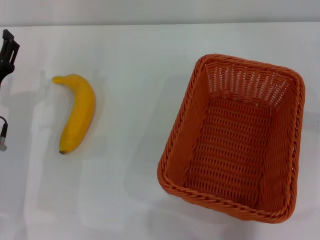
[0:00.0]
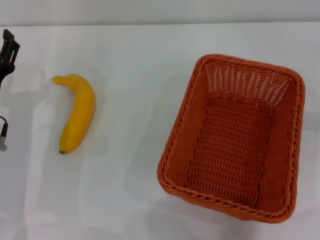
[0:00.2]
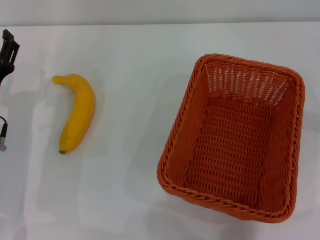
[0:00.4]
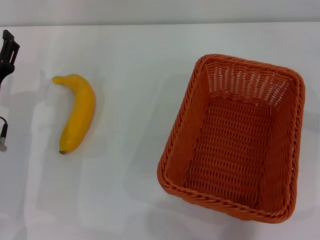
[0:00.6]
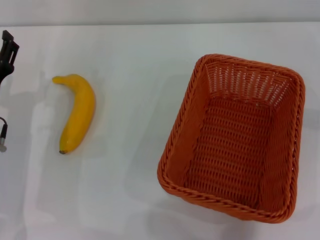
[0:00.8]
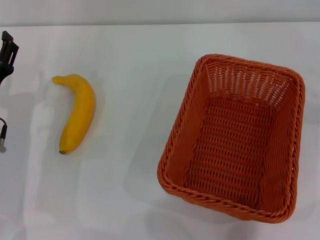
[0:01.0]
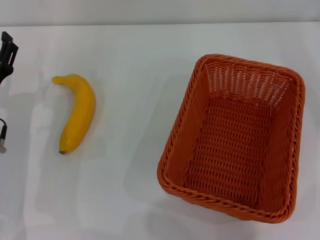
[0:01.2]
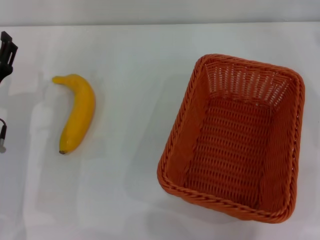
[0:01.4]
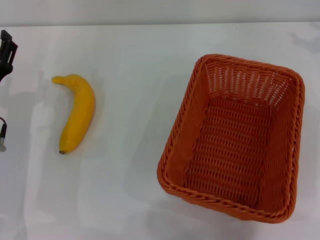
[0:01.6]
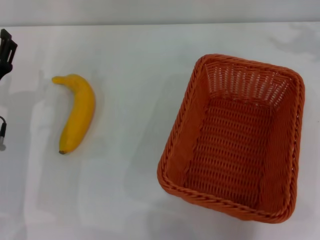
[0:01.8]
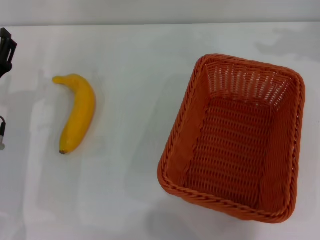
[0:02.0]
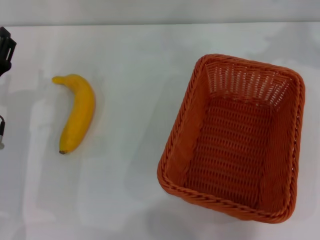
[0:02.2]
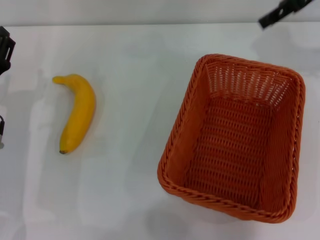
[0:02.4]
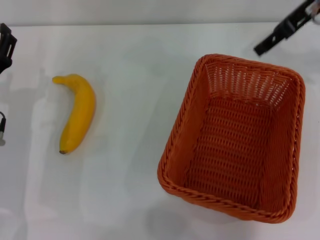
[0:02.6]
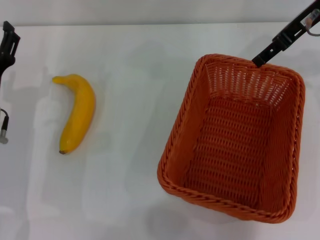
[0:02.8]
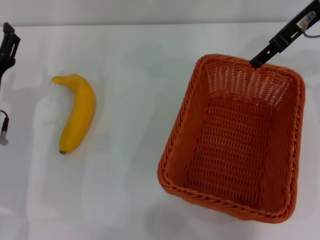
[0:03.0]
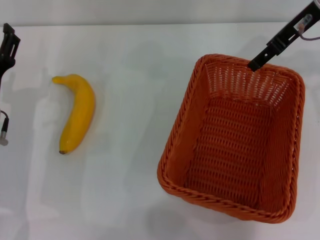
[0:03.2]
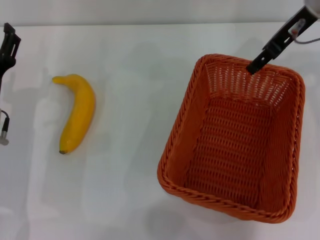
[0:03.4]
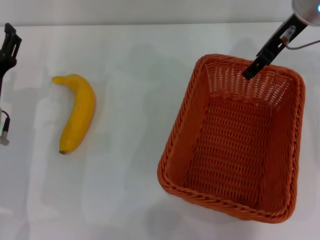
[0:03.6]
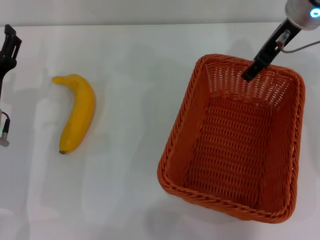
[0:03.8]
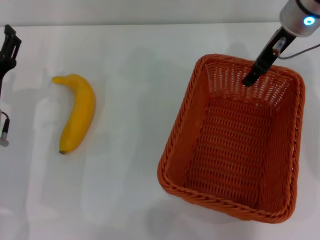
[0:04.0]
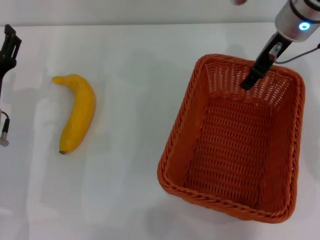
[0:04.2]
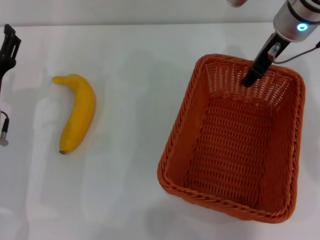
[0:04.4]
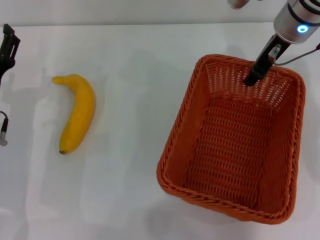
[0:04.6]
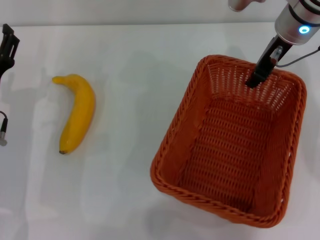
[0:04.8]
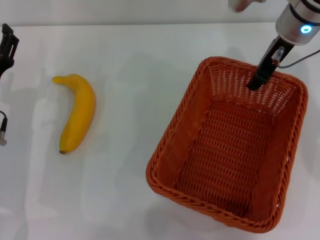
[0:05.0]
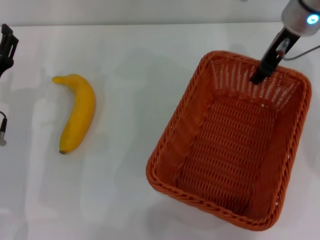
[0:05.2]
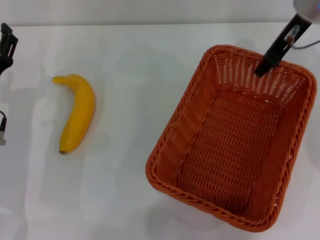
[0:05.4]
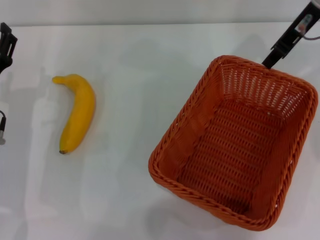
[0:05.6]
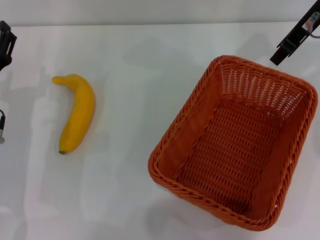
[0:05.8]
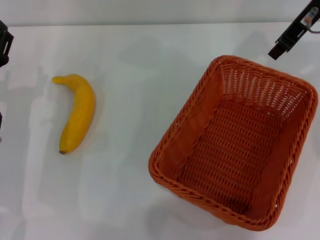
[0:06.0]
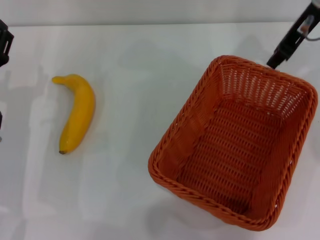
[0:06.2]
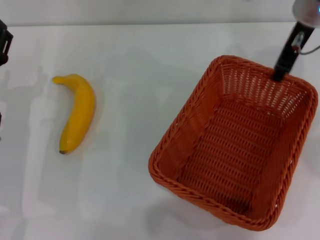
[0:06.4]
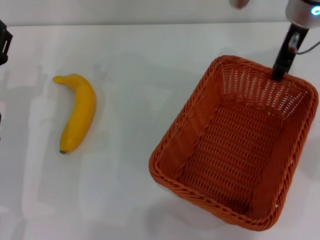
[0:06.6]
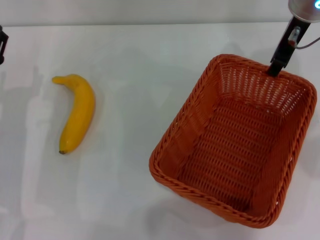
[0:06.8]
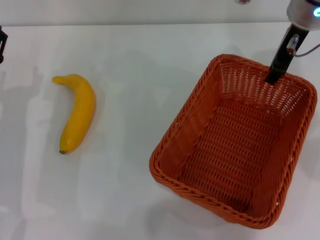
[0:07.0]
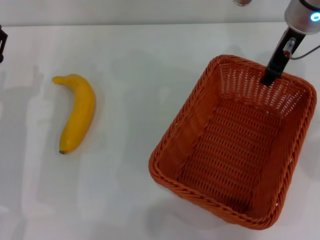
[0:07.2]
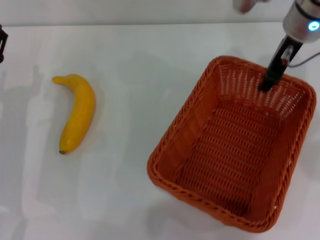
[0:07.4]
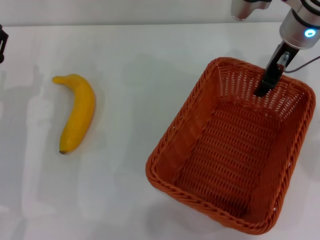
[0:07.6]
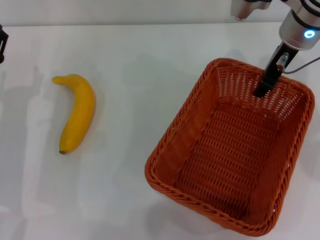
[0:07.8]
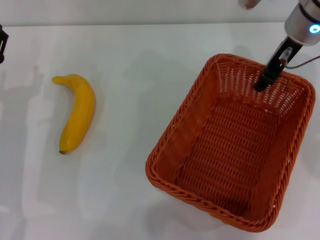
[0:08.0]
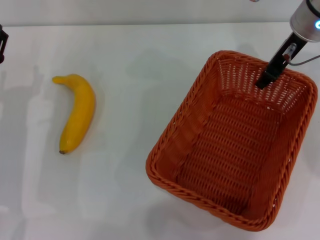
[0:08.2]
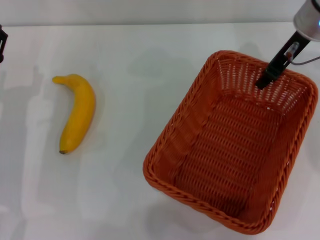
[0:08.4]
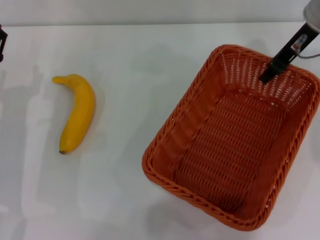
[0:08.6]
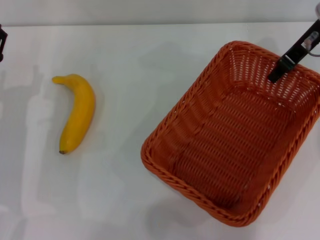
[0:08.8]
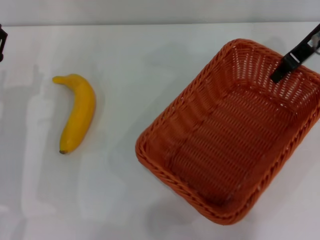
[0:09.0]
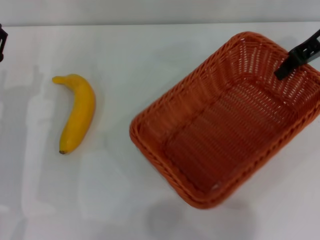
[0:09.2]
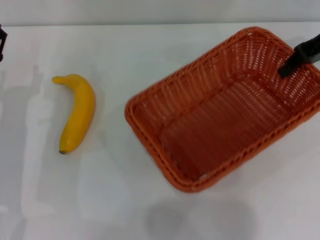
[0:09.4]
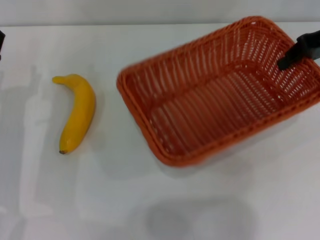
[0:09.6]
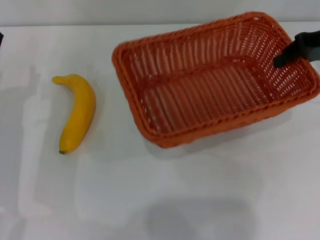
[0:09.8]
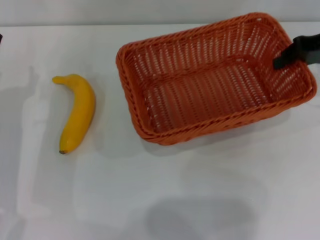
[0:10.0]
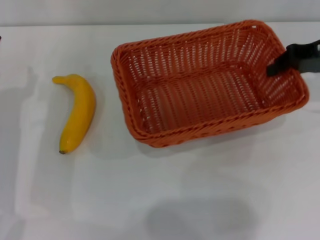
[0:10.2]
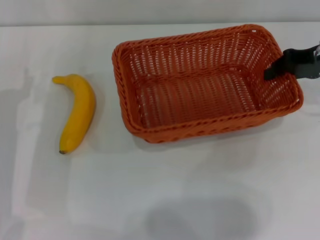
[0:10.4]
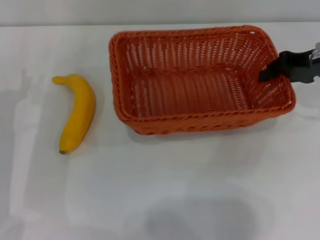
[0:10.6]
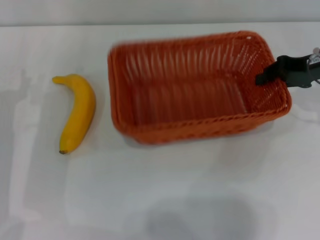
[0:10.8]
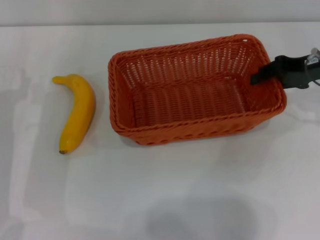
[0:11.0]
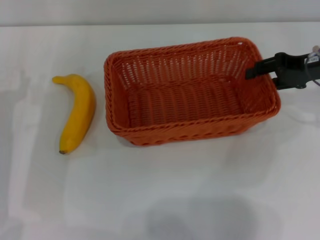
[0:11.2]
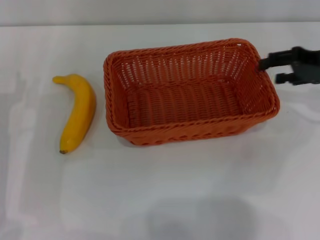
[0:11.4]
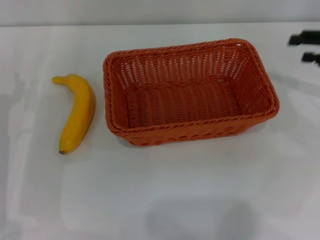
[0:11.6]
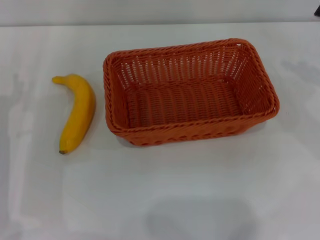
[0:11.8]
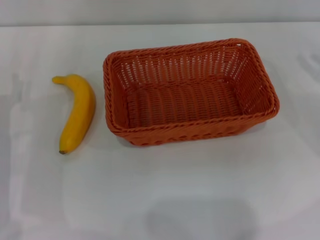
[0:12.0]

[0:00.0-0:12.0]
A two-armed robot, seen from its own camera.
Step, 0:00.0 to 0:09.4: Pick up the light basket with the right gripper.
Step, 0:09.6 to 0:11.2: Place the light basket in the center of view with the right gripper.
0:01.6 to 0:03.0: The right gripper travels to the left by roughly 20 cm.
0:03.0 to 0:04.4: The right gripper shifts roughly 5 cm downward.
0:04.4 to 0:06.0: The right gripper travels upward by some 5 cm, and closes.
0:06.0 to 0:07.6: The right gripper moves downward, roughly 5 cm, and opens.
0:07.6 to 0:09.0: The right gripper heads to the right, covering about 5 cm.
0:09.0 to 0:10.4: The right gripper shifts by approximately 10 cm.
0:10.4 to 0:12.0: The right gripper goes roughly 10 cm to the right, backward and downward, and opens up.

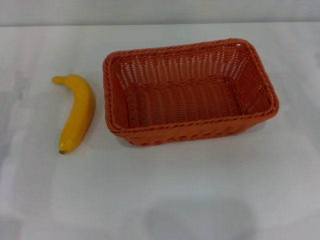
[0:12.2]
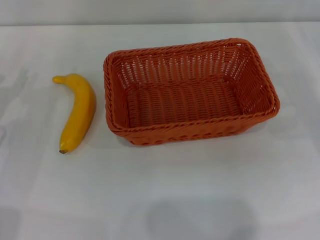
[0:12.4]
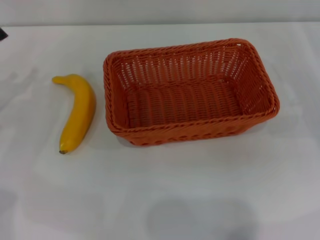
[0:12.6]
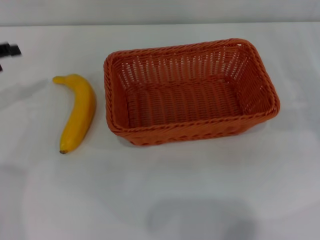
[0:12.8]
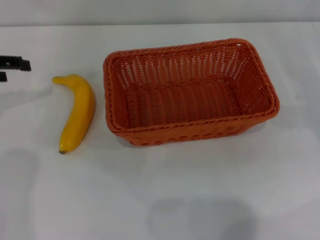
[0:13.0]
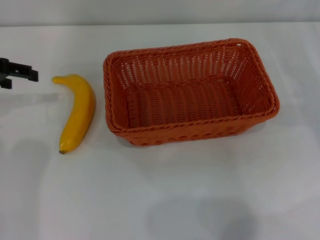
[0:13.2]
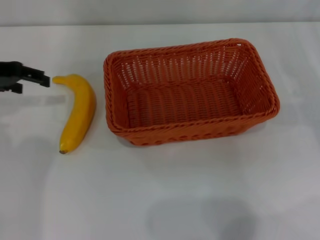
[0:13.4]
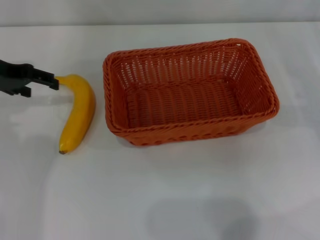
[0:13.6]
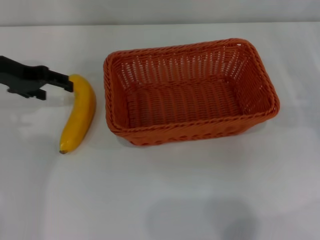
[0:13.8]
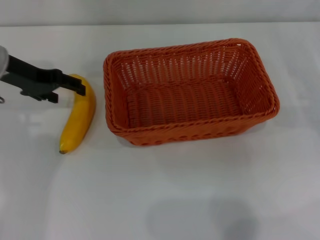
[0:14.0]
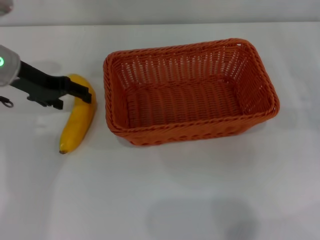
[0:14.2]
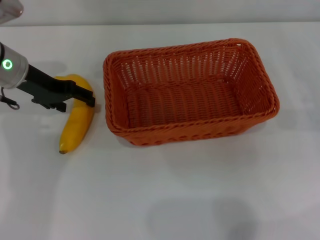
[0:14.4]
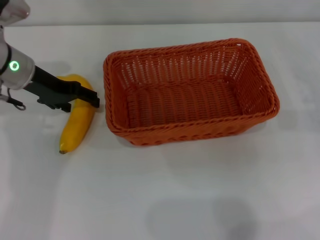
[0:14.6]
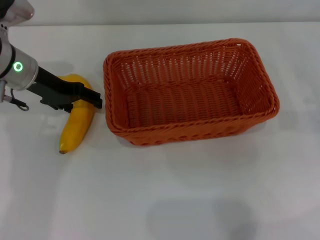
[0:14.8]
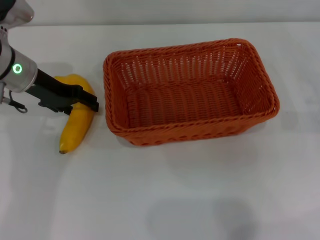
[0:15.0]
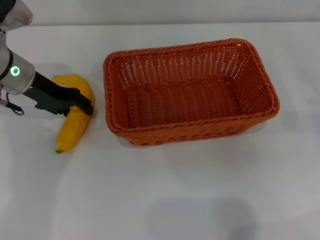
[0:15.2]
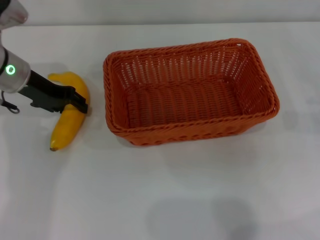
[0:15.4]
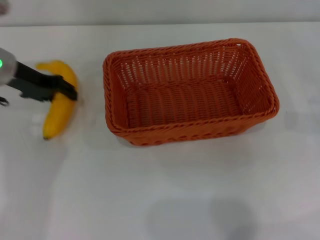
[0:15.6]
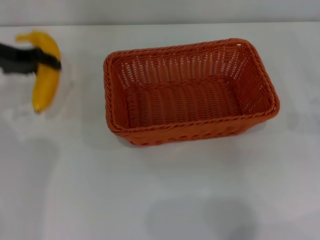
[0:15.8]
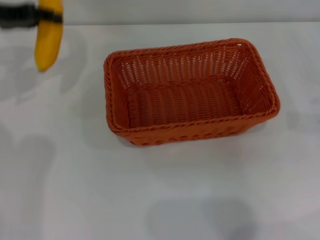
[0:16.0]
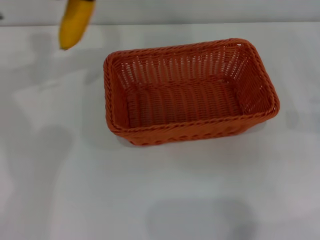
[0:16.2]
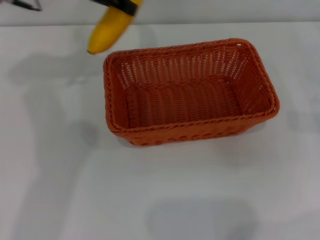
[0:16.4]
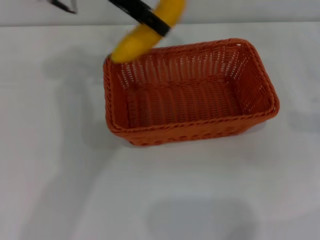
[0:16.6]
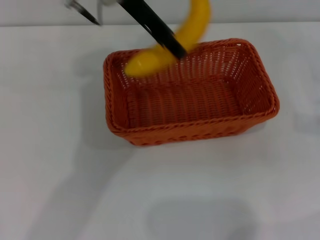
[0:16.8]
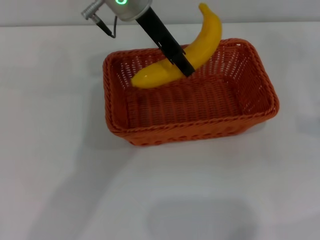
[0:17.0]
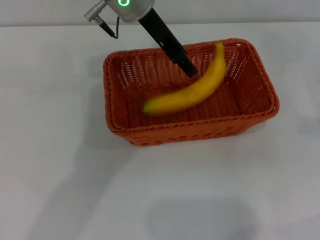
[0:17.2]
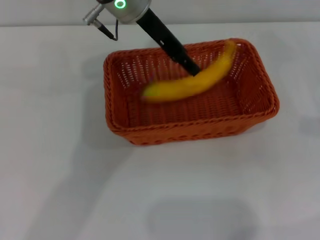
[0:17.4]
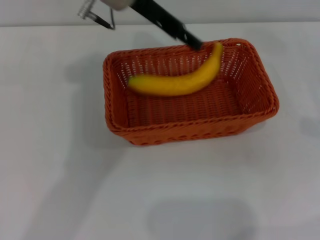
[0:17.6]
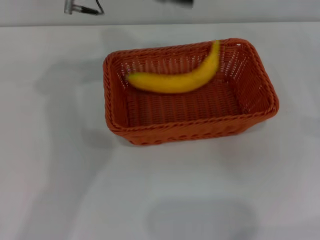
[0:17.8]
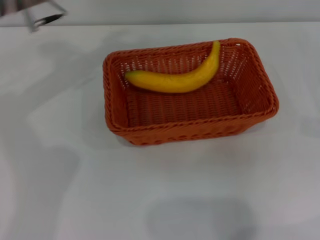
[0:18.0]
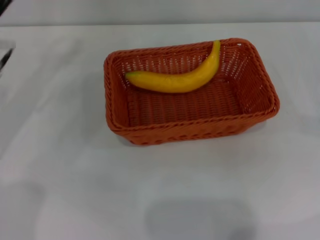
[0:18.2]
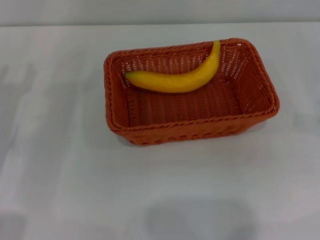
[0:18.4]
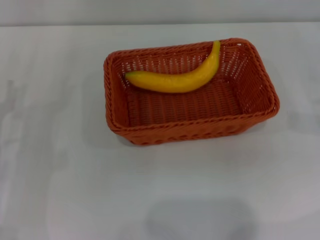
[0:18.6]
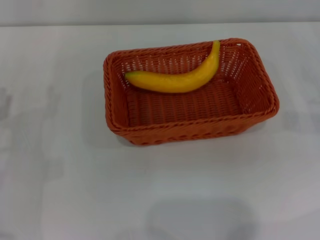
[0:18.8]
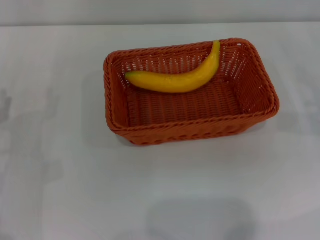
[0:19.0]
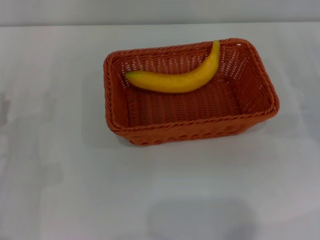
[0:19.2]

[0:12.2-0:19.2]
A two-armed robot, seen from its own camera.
Step, 0:12.2 to 0:15.6: Pick up the banana with the left gripper.
Step, 0:15.8 to 0:17.6: Place the banana into the light basket with the left gripper.
0:12.2 to 0:13.6: The left gripper shifts roughly 15 cm upward and forward.
0:13.6 to 0:15.0: The left gripper is displaced to the right by roughly 5 cm.
0:15.0 to 0:16.4: The left gripper shifts some 15 cm upward, and closes.
0:16.4 to 0:17.8: The left gripper heads to the right, covering about 5 cm, and opens up.
0:17.8 to 0:19.2: The left gripper is displaced downward, backward and to the left by about 35 cm.
